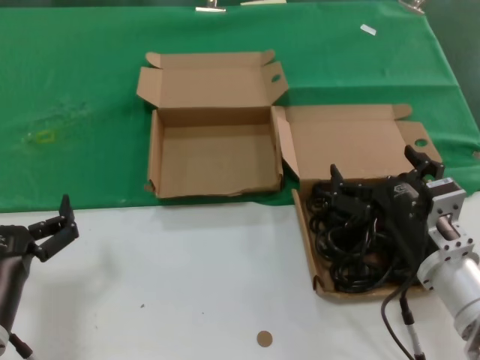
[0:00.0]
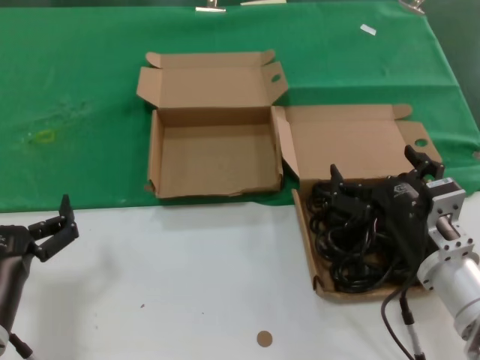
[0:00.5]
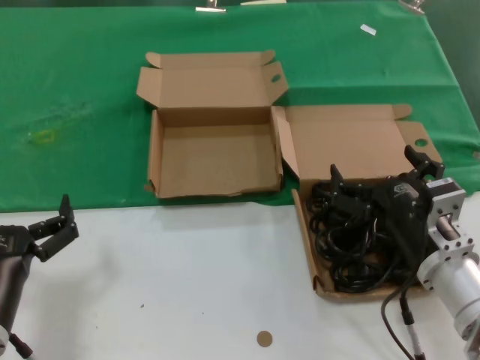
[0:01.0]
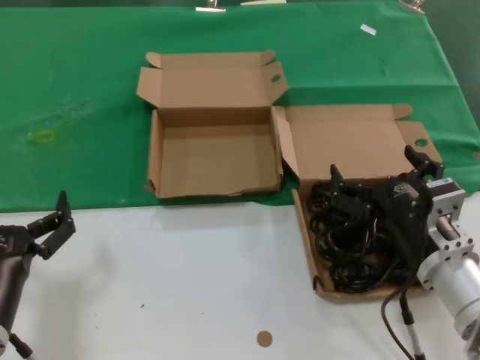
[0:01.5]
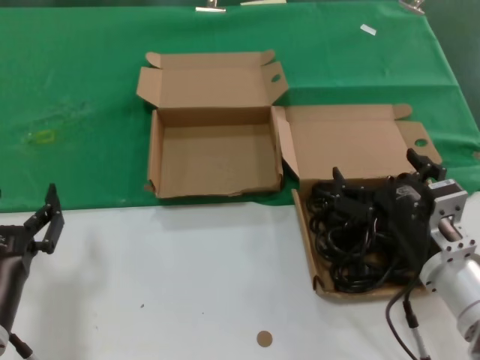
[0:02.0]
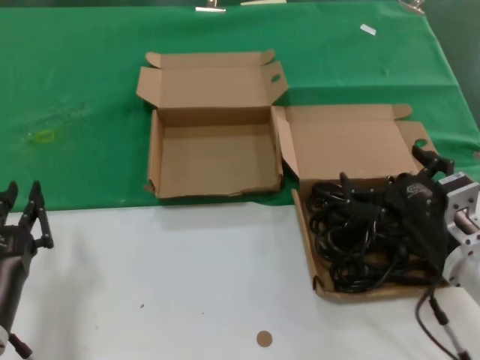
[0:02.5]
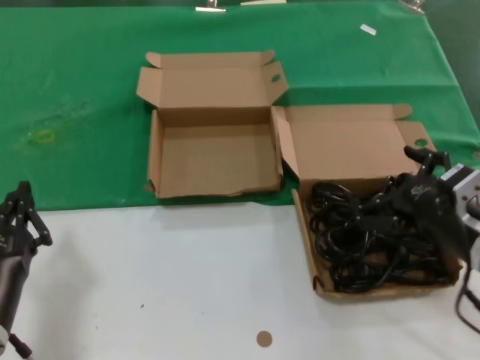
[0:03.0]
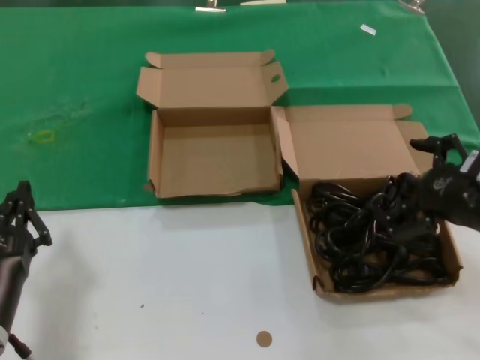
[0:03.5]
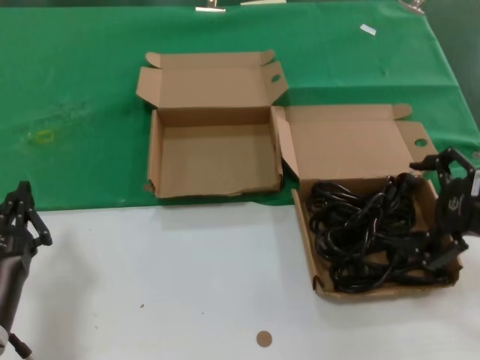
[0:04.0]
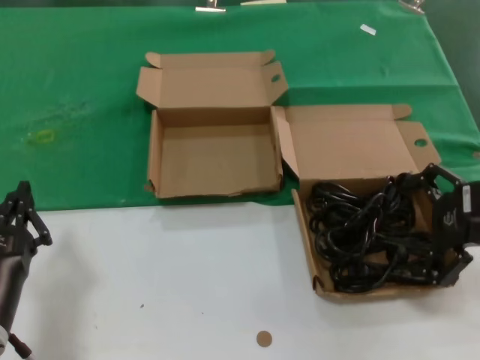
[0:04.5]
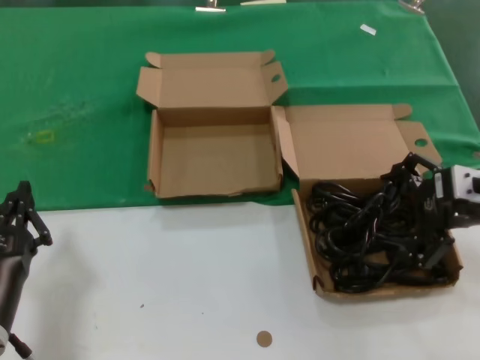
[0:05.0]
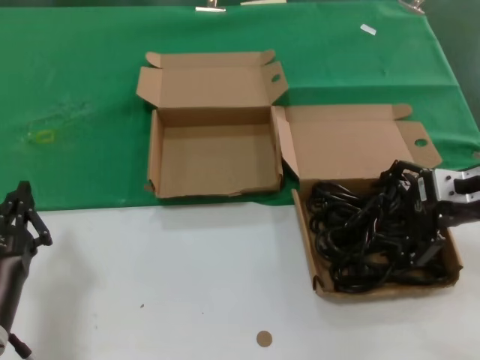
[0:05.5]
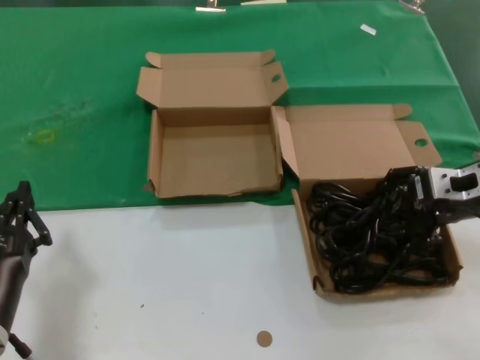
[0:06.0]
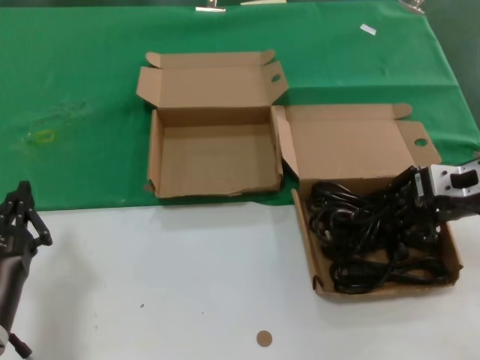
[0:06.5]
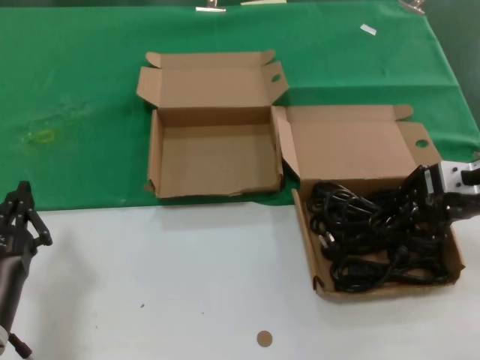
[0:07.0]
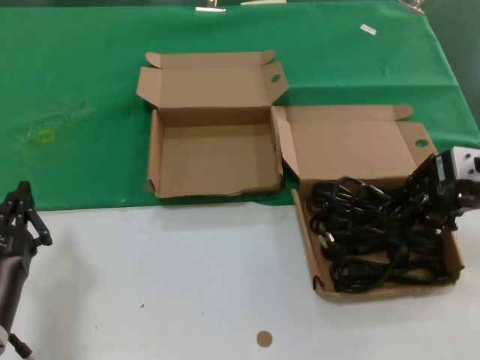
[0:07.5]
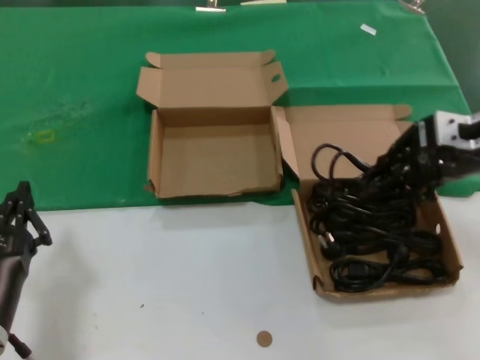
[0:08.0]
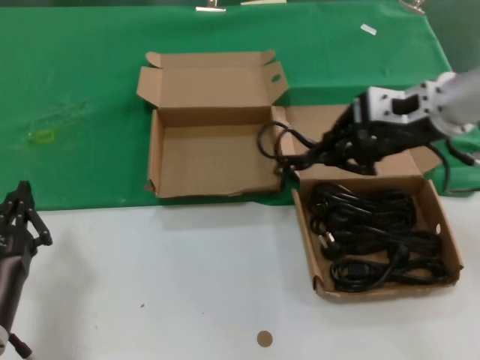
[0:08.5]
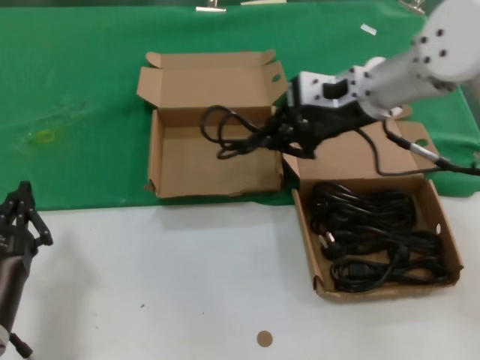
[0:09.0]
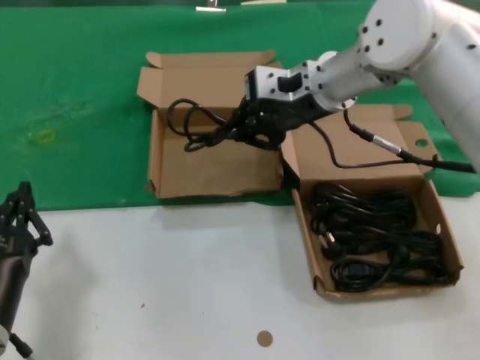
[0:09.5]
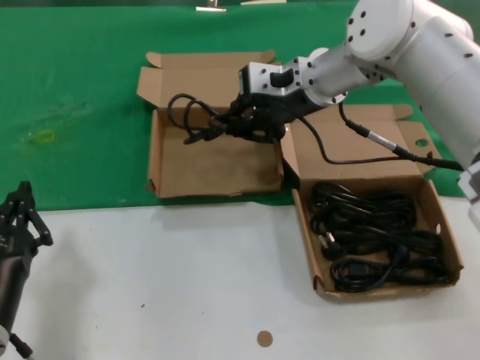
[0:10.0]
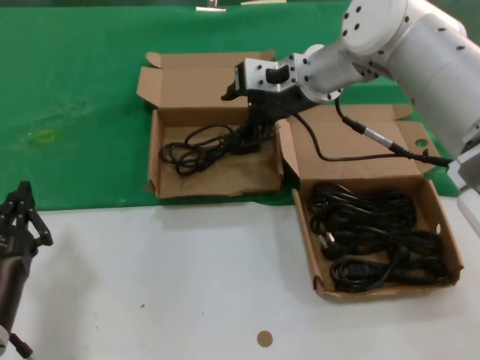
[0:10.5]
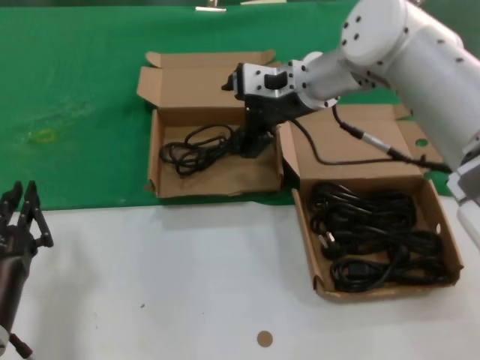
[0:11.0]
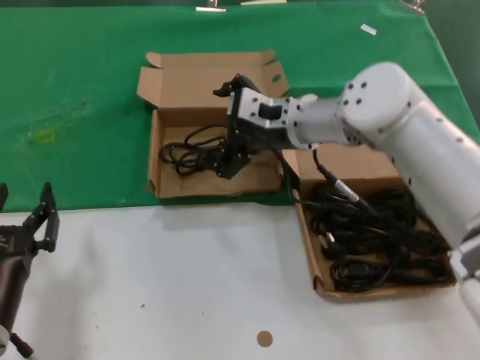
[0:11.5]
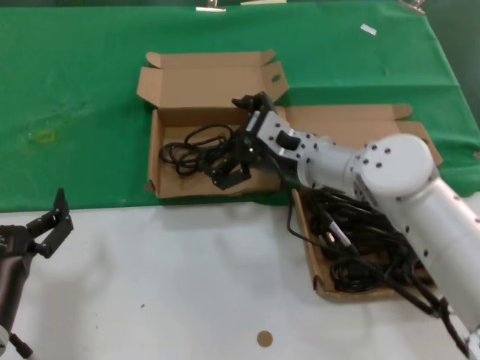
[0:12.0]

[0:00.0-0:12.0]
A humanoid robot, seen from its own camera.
Task of the whole recording: take the parts from the box containing them and put them into an empty box.
Step, 0.0 to 6.5 s: Grasp the data cable.
Step, 7.0 to 10.0 s: Place the data cable in the another box.
0.0 to 2.0 s: Both hands stay put.
2.0 to 4.0 s: The right hand heads to the right and upward, covering approximately 20 cm.
4.0 to 6.0 s: The right hand moves forward, some 10 cm.
6.0 to 8.0 s: The right hand is displaced upward by some 10 cm.
8.0 to 10.0 s: The right hand shifts approximately 25 cm to the left and forward.
10.0 to 12.0 s: The right hand heads downward and backward, covering some 15 cm.

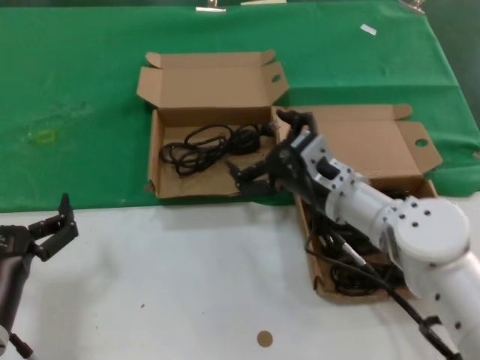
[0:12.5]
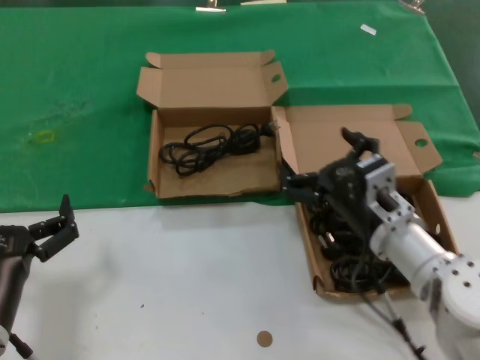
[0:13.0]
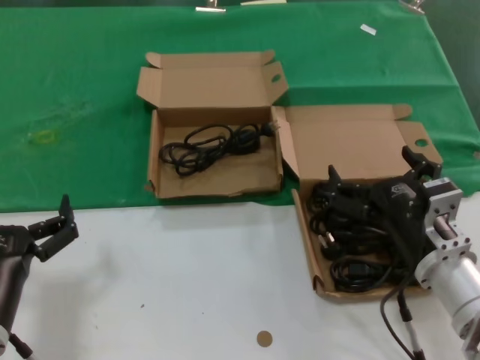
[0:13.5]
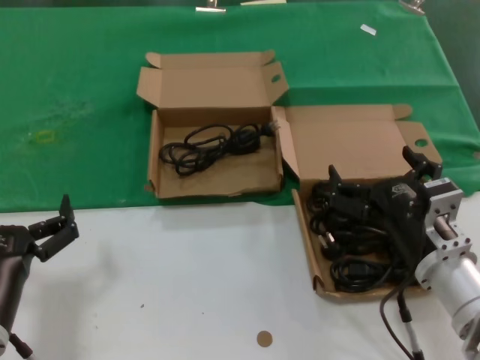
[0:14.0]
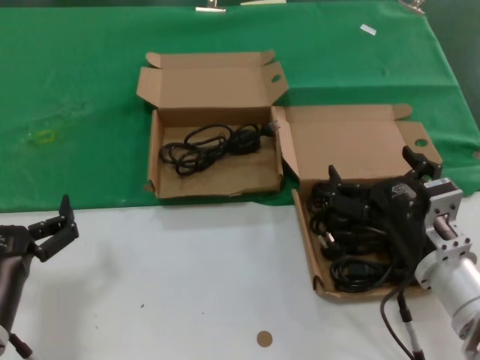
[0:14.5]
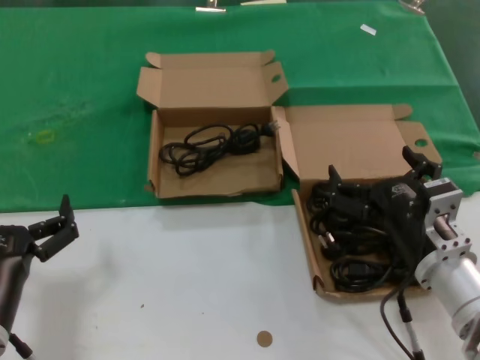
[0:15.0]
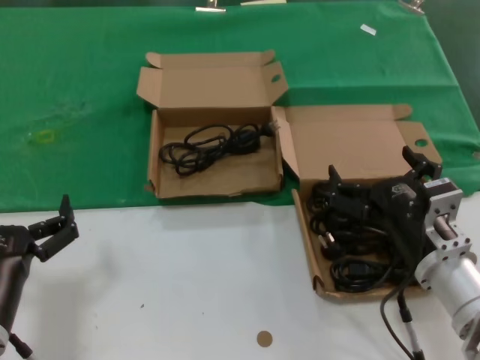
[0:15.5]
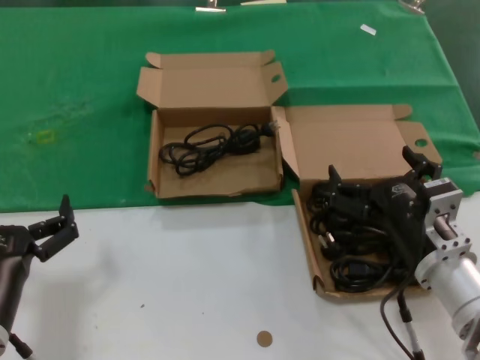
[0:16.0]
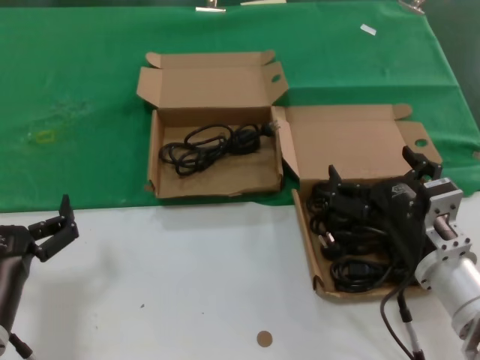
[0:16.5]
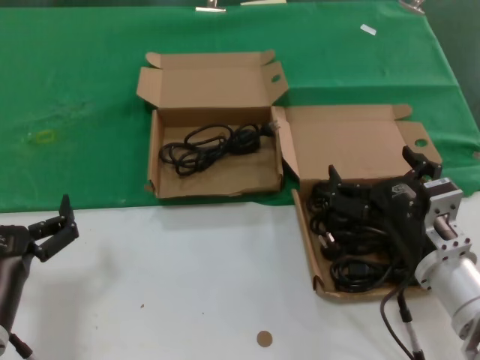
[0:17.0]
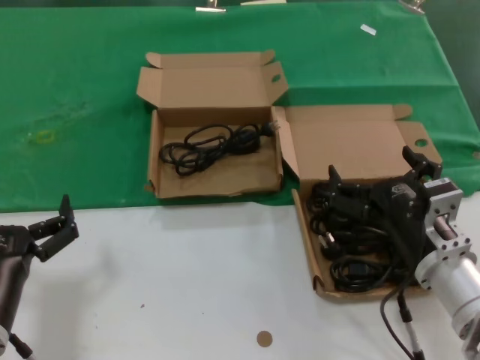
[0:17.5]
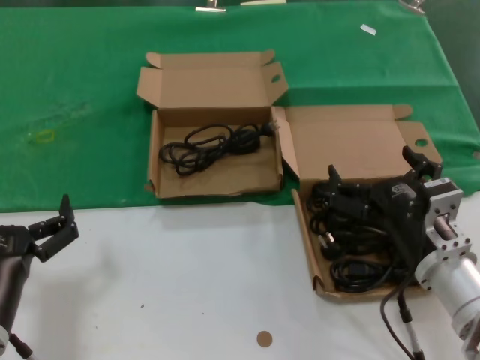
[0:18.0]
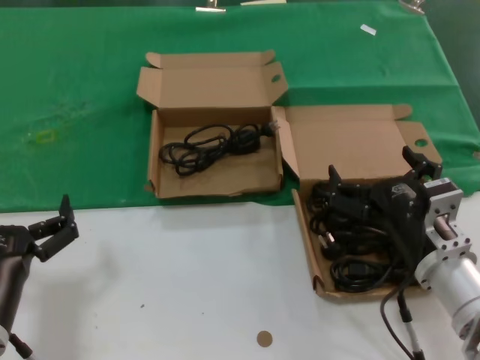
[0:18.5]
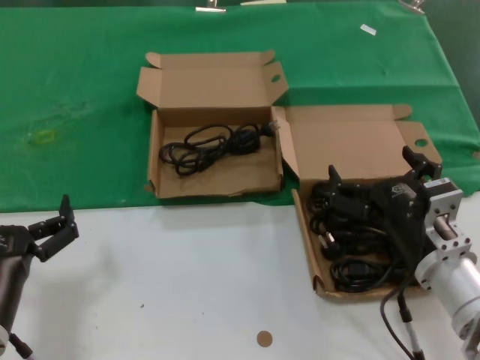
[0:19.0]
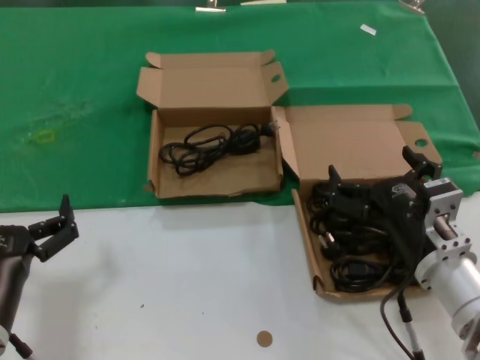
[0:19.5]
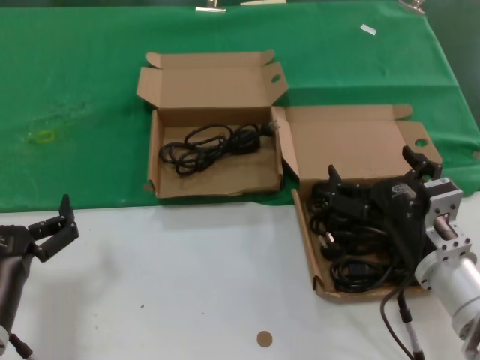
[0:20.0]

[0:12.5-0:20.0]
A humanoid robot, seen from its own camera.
Task of the whole recording: take the parts from the box containing them and put them into an empty box.
12.5 to 14.5 s: The right hand goes about 15 cm backward and to the right.
14.5 to 20.0 s: Both hands stay put.

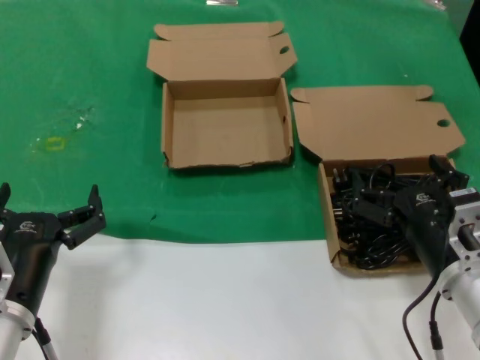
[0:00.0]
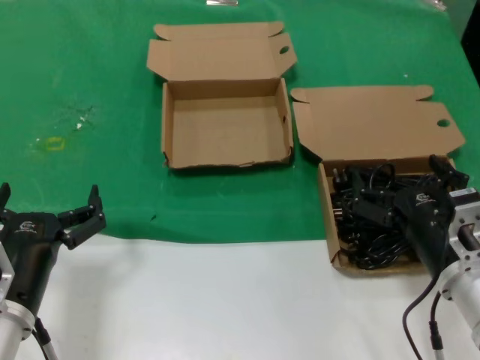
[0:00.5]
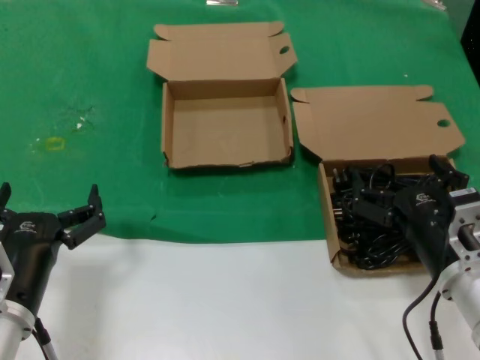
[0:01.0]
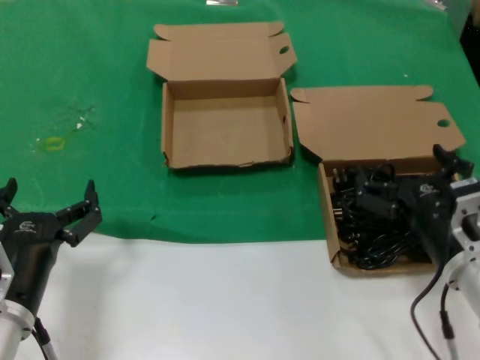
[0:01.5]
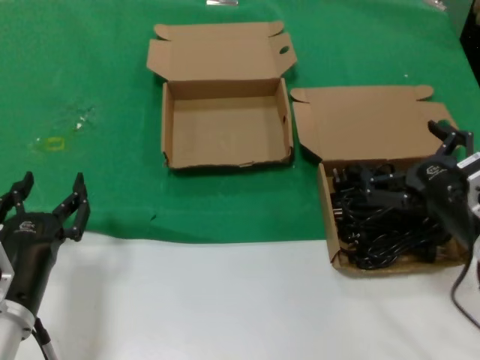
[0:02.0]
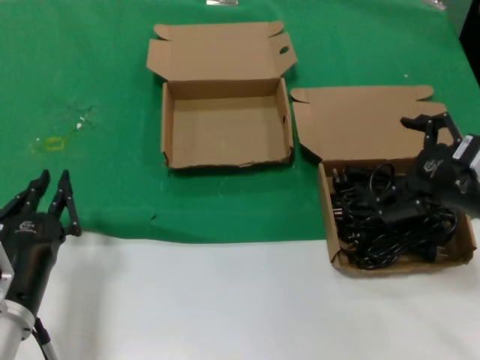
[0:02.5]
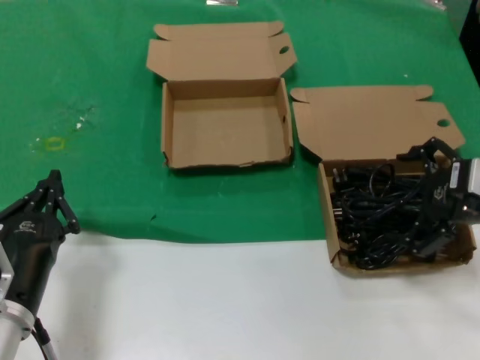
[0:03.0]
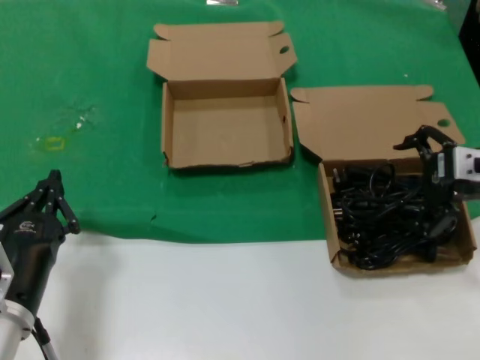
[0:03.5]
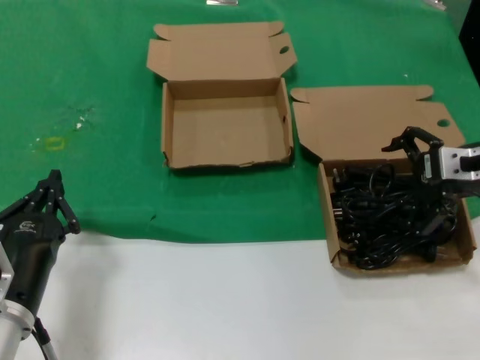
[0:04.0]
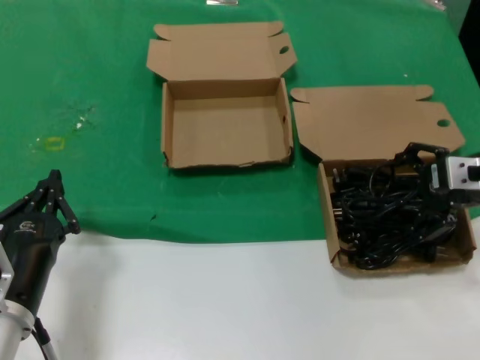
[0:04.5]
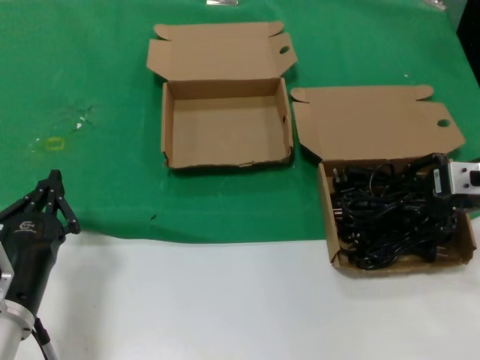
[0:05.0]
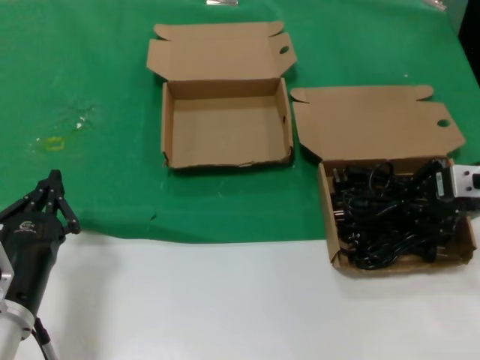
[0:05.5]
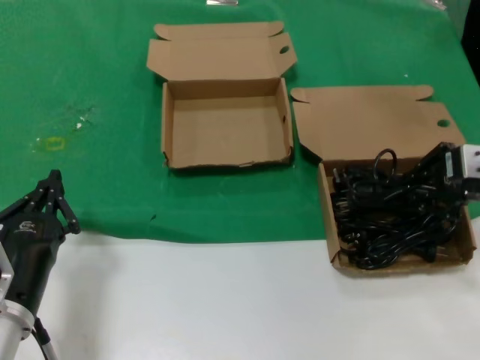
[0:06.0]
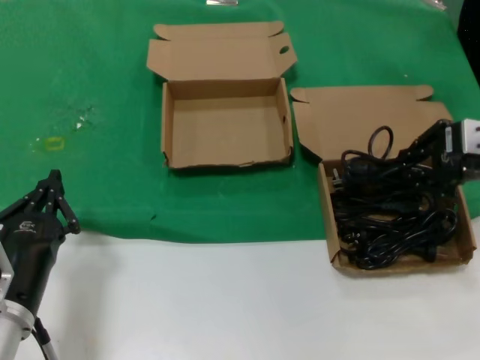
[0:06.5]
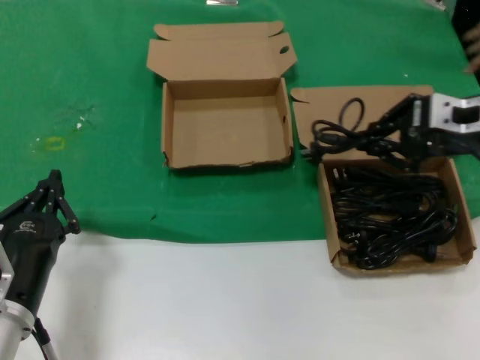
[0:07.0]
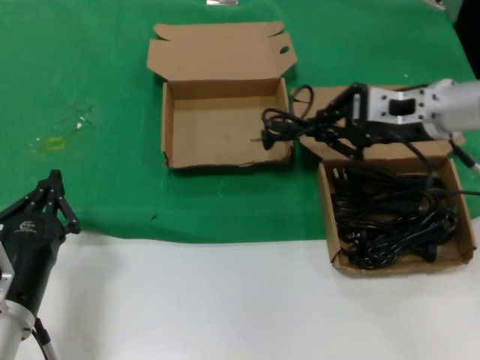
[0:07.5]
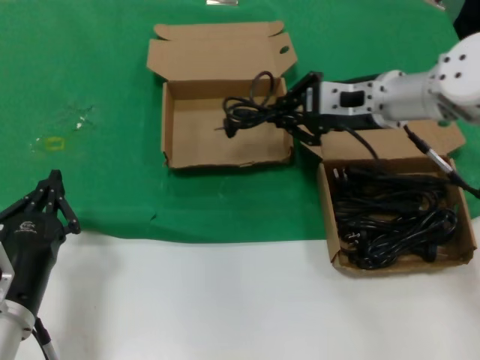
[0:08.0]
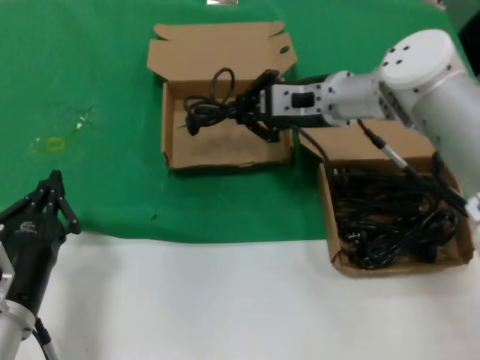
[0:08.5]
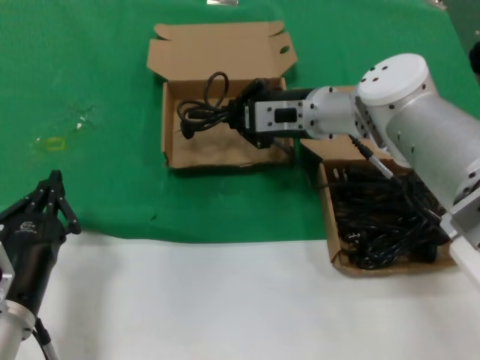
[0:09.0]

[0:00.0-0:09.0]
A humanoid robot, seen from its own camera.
Task of the whole recording: take the parts from the box containing them and put them into an empty box.
Step, 0.0 to 5.5 s: Grasp the data cable.
0.0 to 2.0 s: The right hand shifts by approximately 5 cm.
2.0 to 4.5 s: The right hand shifts some 15 cm forward, upward and to the right.
4.5 to 7.0 s: The right hand goes roughly 5 cm upward.
7.0 to 9.0 s: The right hand shifts approximately 20 cm to the left and forward.
